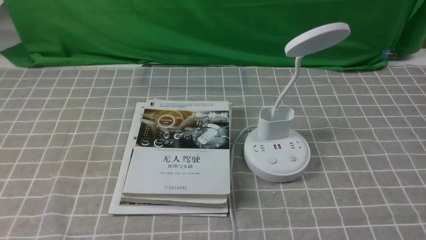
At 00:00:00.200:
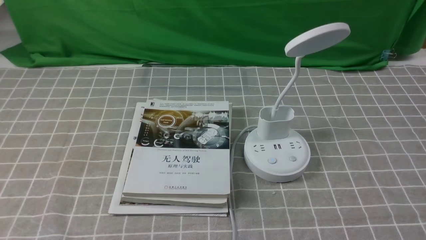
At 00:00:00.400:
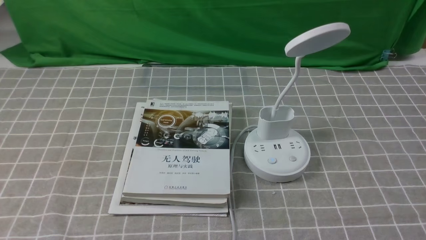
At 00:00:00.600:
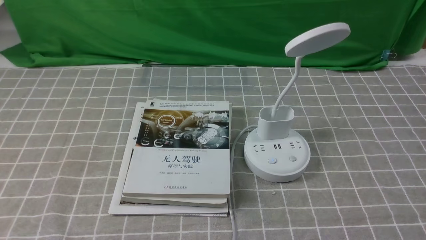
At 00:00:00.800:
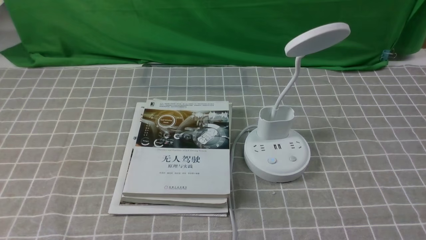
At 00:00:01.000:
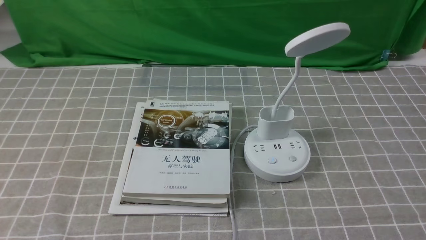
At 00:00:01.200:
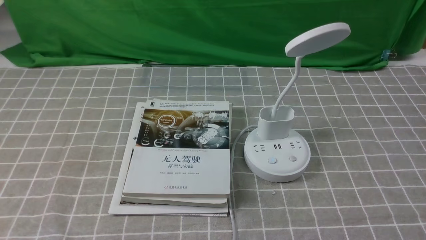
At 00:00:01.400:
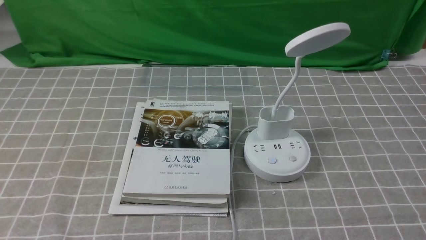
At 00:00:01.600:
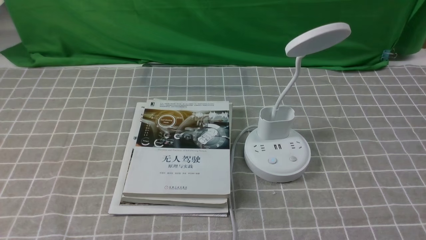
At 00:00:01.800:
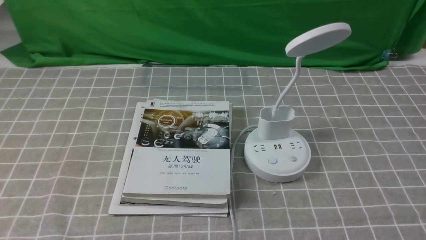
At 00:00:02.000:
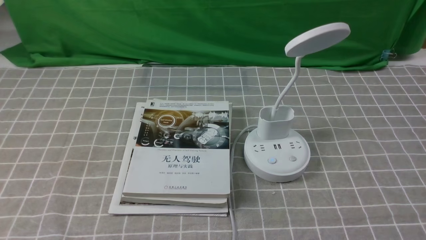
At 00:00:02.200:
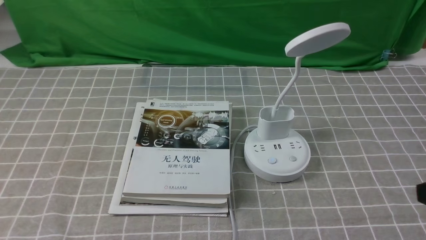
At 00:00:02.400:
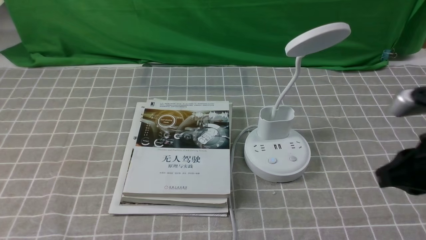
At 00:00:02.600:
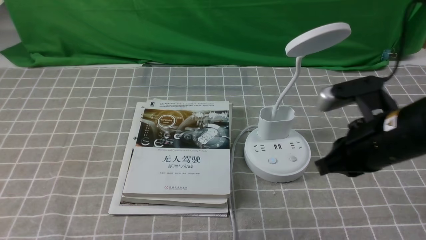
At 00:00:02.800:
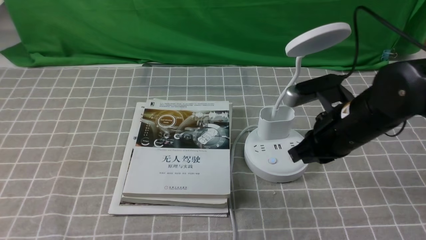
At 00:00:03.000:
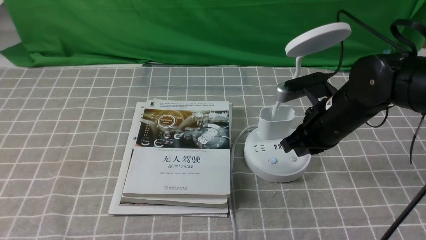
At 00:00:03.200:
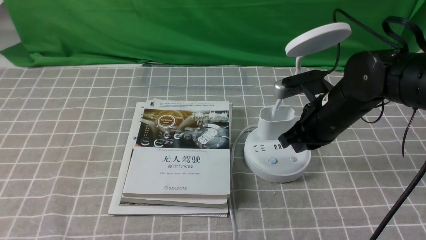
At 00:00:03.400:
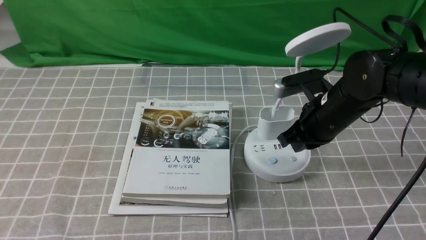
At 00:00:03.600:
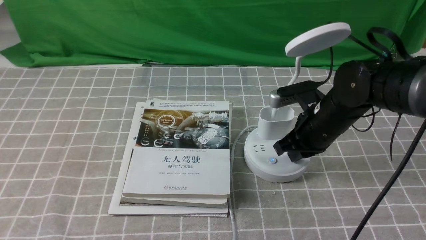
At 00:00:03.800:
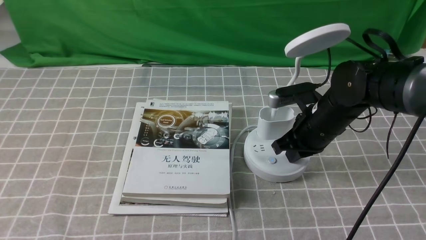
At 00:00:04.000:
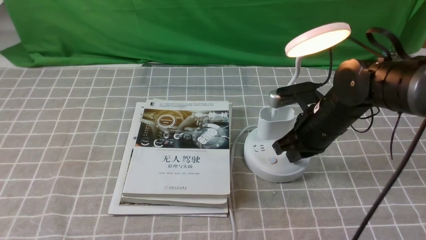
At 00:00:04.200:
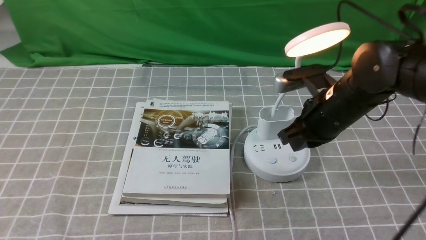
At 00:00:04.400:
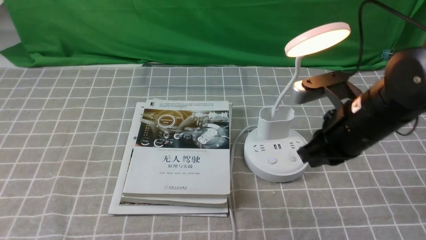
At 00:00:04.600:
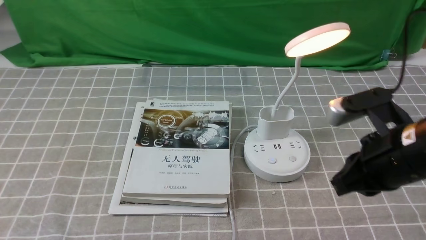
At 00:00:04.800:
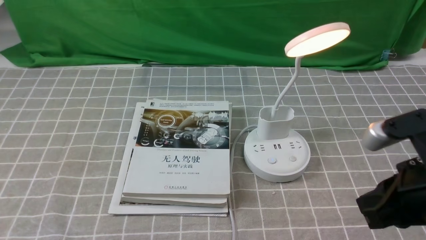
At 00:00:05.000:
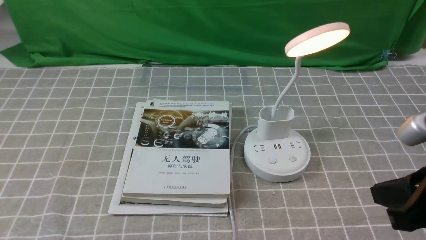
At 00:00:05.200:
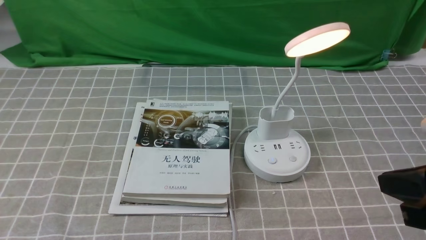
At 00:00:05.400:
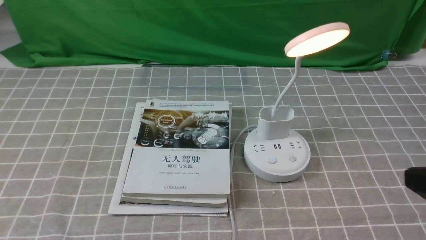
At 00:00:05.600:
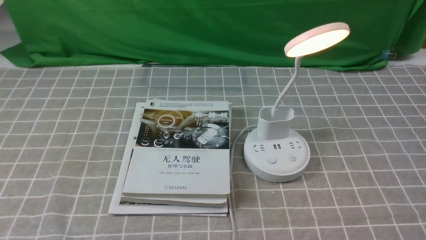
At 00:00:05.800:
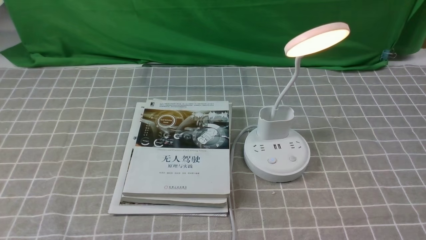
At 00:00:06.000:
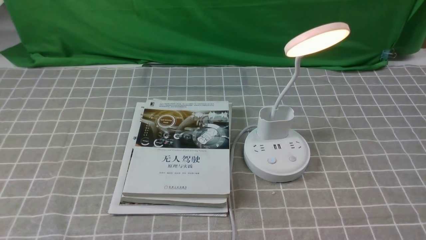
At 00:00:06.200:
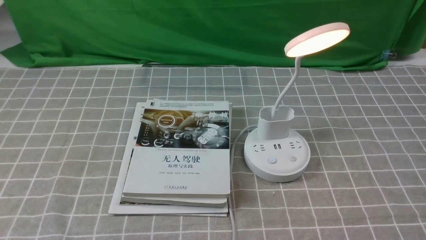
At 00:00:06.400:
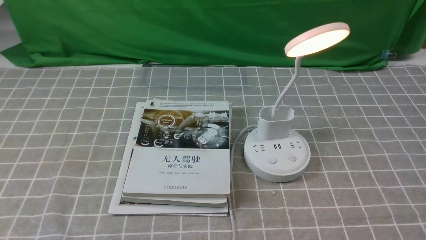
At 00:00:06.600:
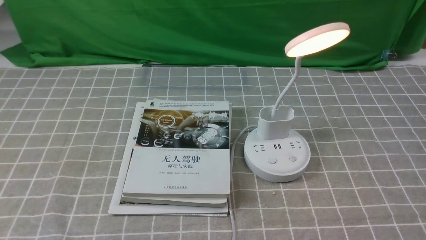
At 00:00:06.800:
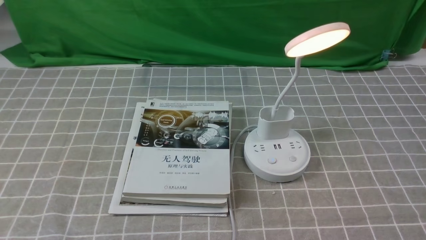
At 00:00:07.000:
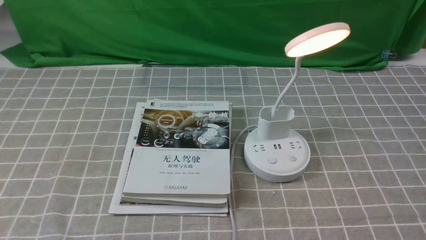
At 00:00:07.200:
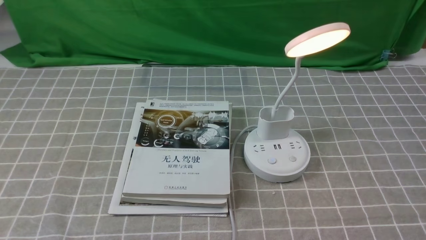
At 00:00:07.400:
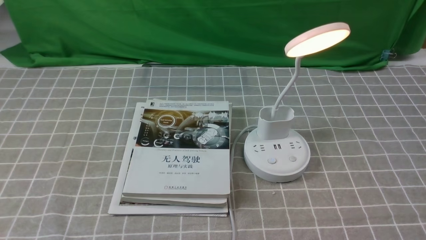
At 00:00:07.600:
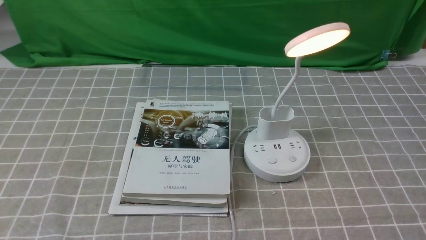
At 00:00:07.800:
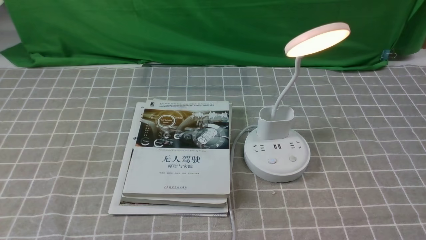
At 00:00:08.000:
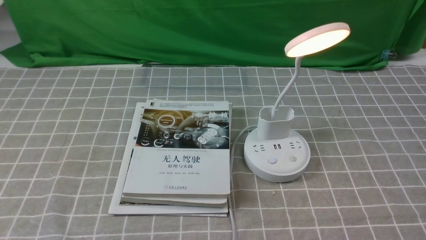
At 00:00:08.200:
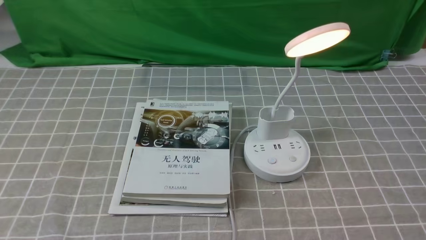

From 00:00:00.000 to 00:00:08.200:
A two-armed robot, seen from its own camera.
Step, from 00:00:00.000 to 00:00:04.200: use the right arm to press the button switch on the lamp holder.
From 00:00:01.600 to 00:00:03.200: The right gripper heads forward and to the left, covering approximately 30 cm, and closes.
From 00:00:03.200 to 00:00:05.000: The right gripper is displaced backward and upward by about 20 cm.
From 00:00:05.000 to 00:00:06.600: The right gripper is displaced downward, backward and to the right by approximately 15 cm.

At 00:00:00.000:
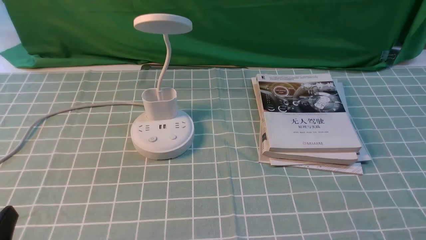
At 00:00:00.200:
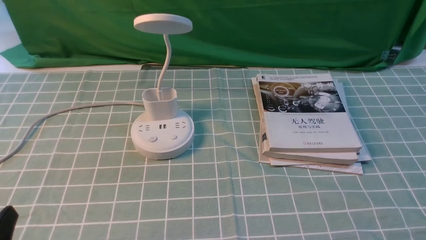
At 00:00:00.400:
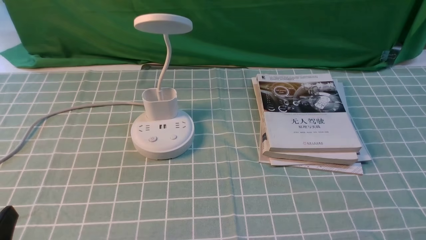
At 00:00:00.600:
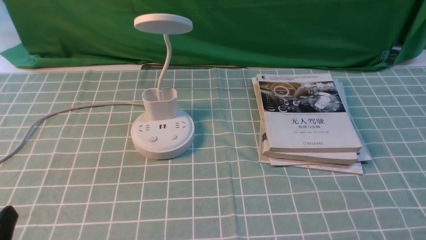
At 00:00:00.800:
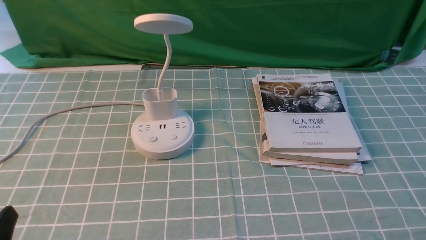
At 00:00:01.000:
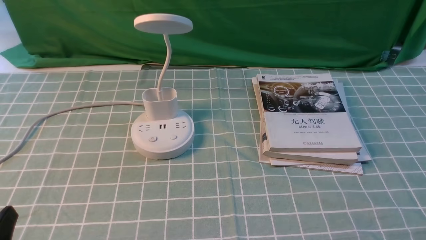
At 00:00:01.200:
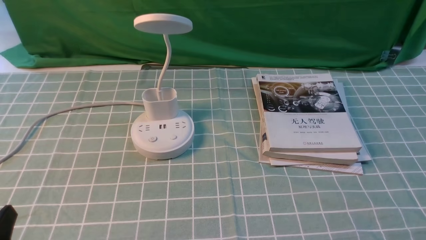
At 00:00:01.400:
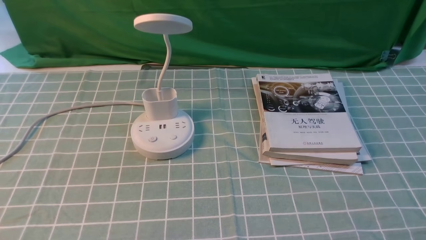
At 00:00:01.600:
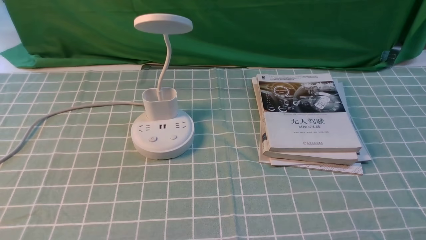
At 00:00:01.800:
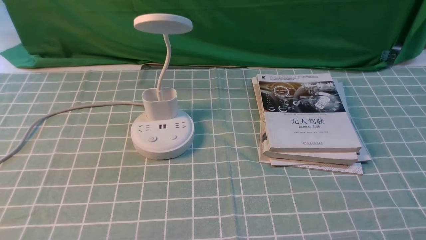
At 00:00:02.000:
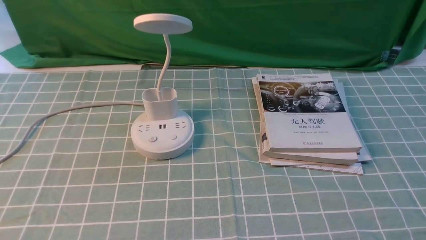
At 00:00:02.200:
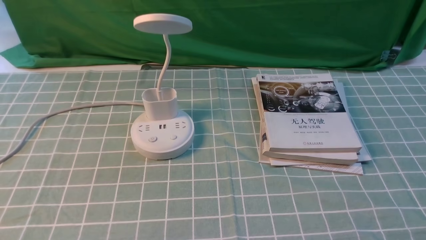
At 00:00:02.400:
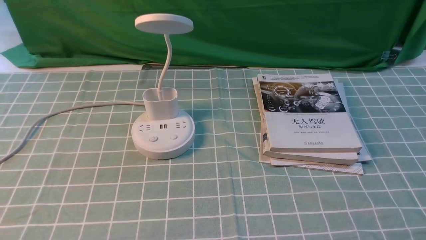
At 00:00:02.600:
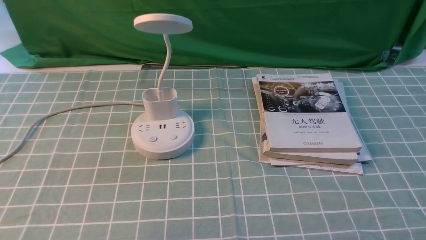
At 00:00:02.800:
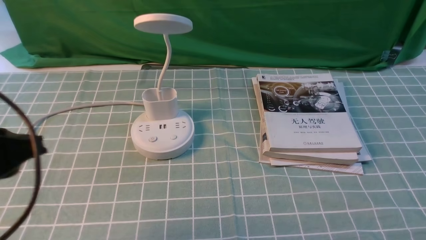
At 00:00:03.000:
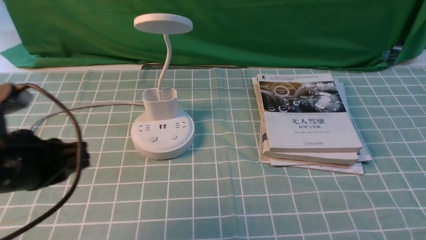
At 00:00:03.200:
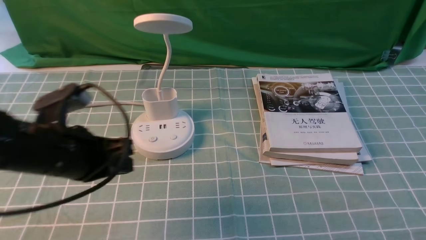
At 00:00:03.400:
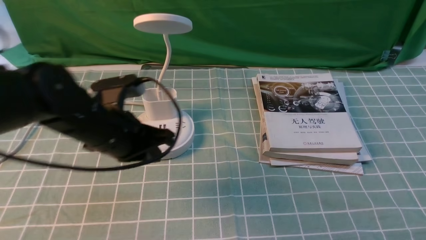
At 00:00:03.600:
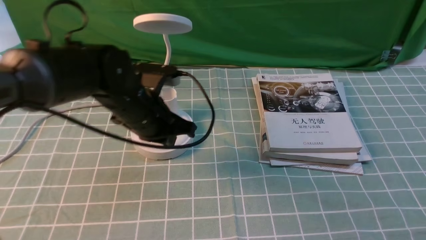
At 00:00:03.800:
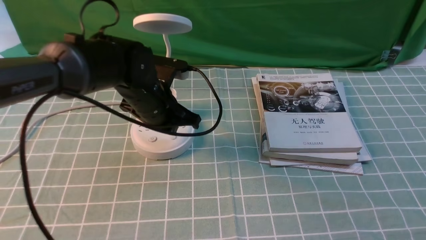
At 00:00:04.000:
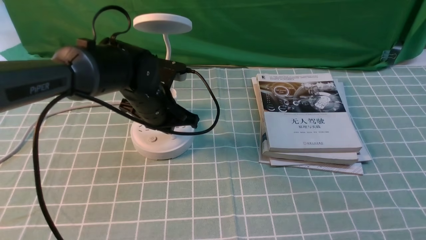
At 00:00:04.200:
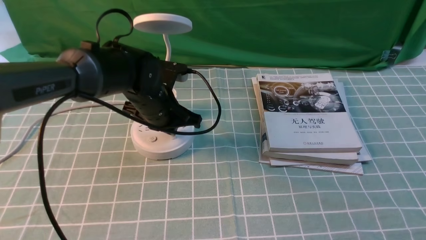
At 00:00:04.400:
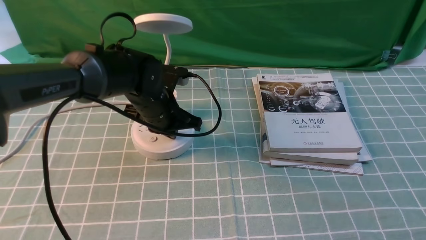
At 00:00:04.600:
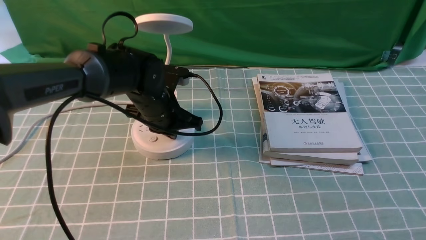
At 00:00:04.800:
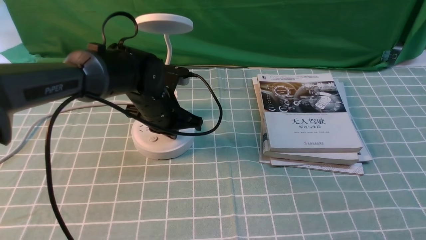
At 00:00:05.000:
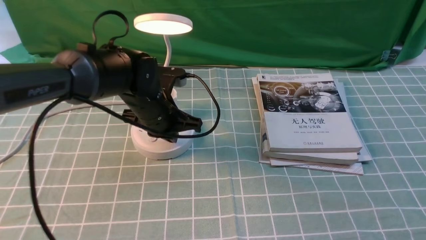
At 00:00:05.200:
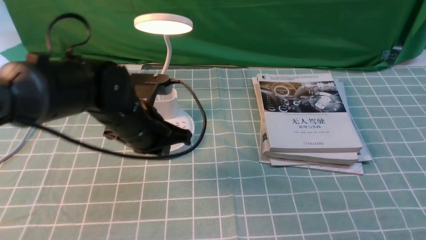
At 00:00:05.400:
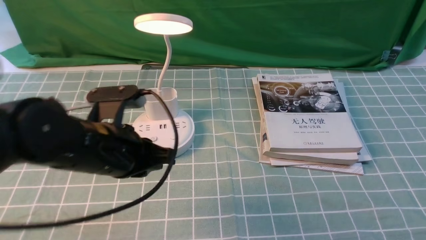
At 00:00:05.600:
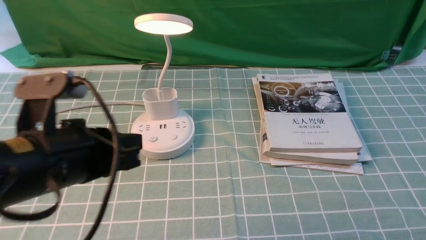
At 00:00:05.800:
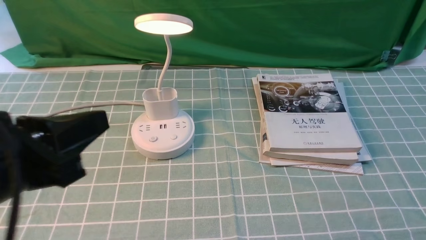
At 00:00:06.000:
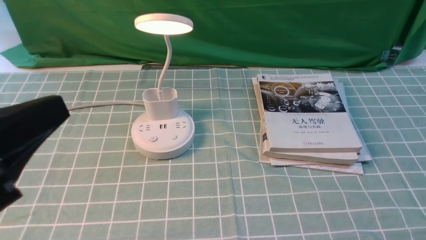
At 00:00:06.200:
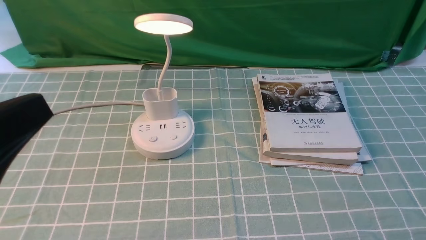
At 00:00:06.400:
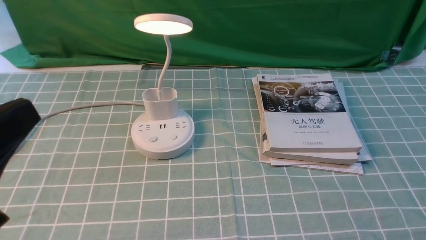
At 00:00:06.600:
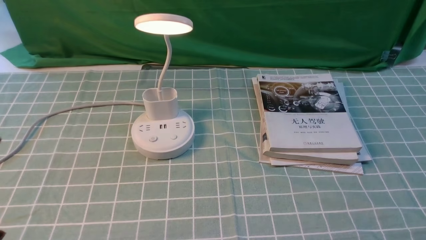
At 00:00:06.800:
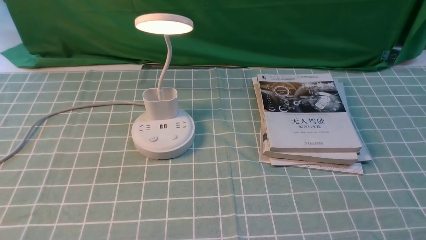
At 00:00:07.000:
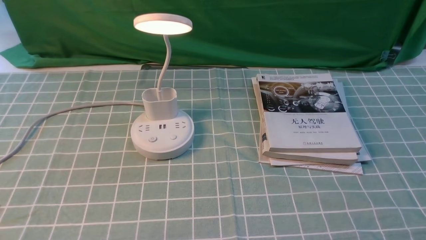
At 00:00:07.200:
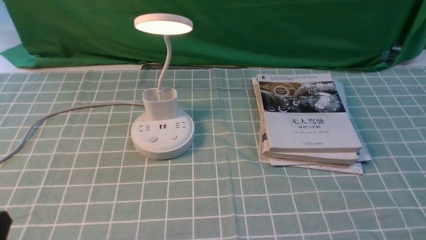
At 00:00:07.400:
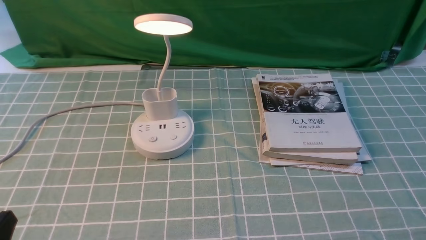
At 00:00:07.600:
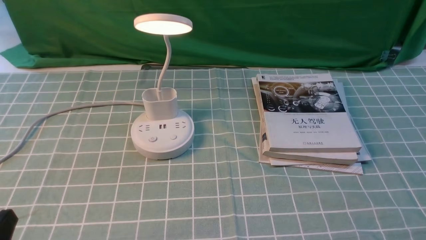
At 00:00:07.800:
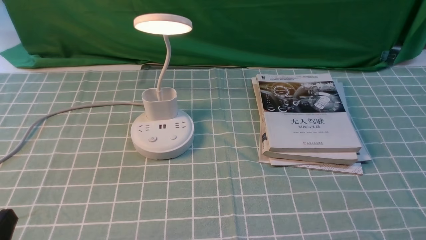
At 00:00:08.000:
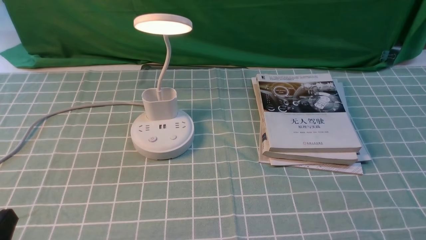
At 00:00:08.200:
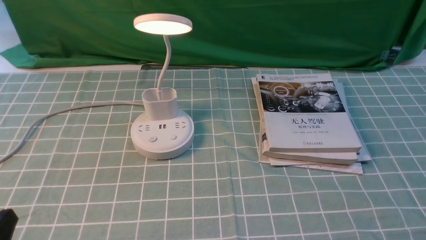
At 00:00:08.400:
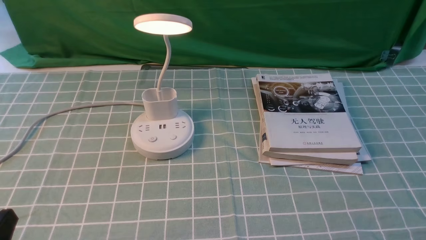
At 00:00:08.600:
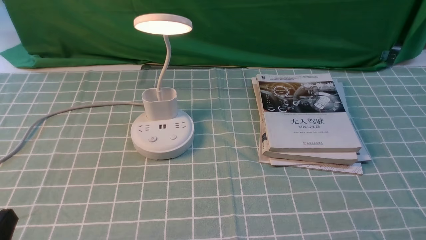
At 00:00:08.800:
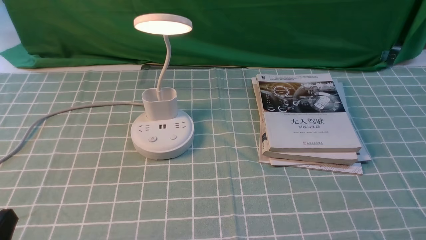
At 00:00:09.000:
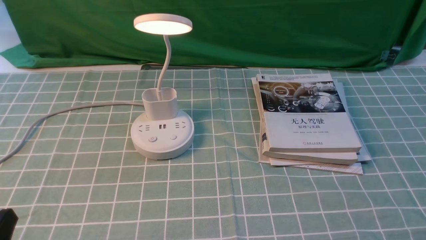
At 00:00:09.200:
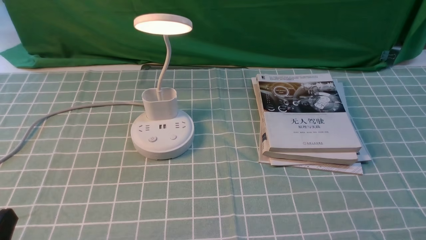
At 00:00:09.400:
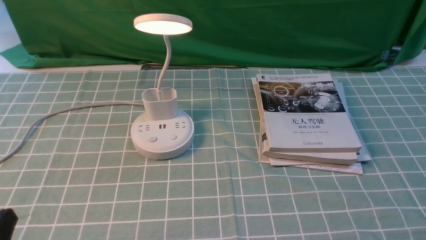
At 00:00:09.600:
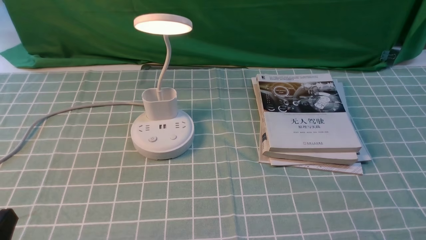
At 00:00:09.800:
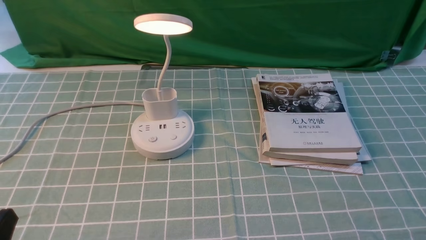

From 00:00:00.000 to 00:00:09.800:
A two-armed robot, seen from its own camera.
Step, from 00:00:00.000 to 00:00:05.000: use the left arm to press the button switch on the lamp holder.
From 00:00:01.400 to 00:00:02.800: The left gripper travels forward and upward by approximately 15 cm, and closes its fingers.
From 00:00:02.800 to 00:00:04.200: The left gripper heads forward, to the right and downward, covering roughly 30 cm.
From 00:00:04.200 to 00:00:05.600: The left gripper heads backward and upward, covering about 25 cm.
From 00:00:05.600 to 00:00:07.000: The left gripper shifts about 20 cm backward, downward and to the left.
From 00:00:08.400 to 00:00:09.800: The two grippers keep their place.
